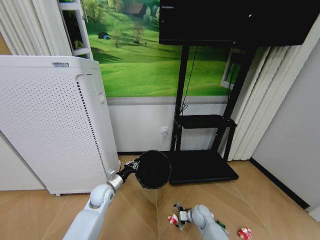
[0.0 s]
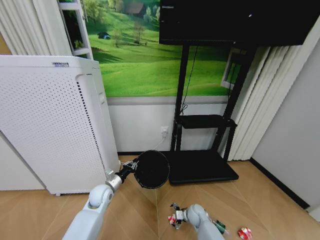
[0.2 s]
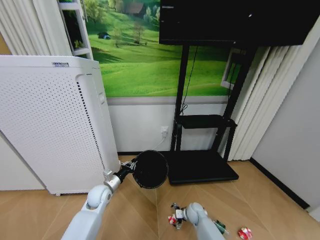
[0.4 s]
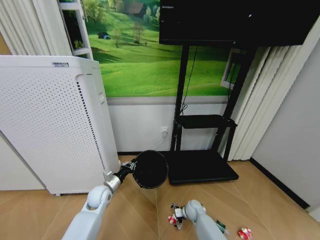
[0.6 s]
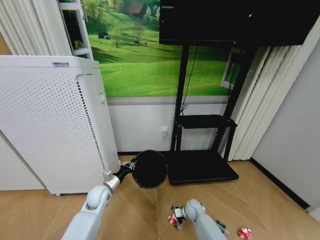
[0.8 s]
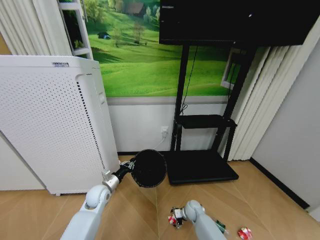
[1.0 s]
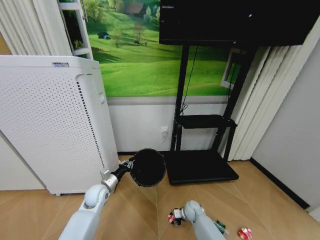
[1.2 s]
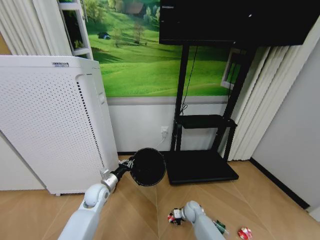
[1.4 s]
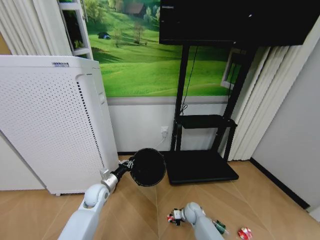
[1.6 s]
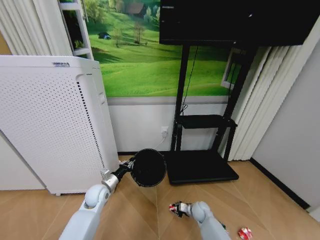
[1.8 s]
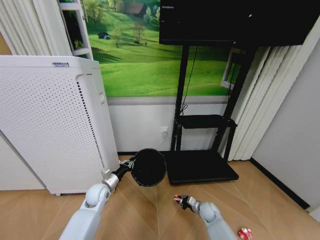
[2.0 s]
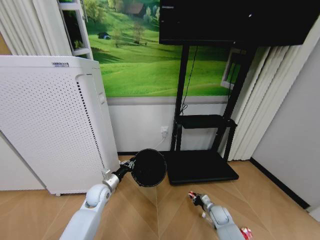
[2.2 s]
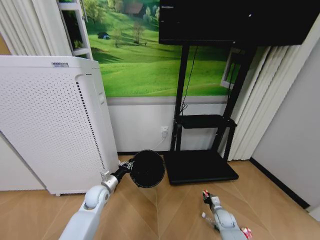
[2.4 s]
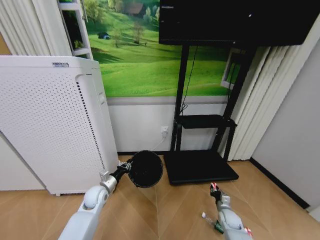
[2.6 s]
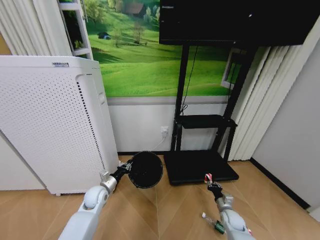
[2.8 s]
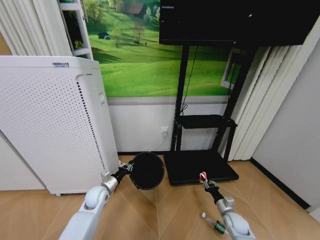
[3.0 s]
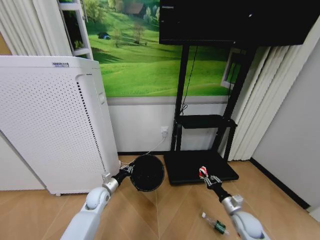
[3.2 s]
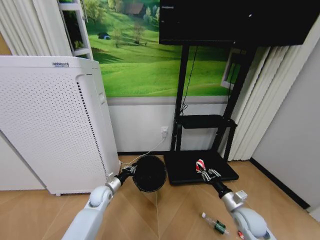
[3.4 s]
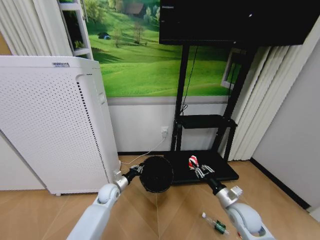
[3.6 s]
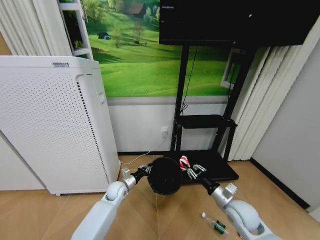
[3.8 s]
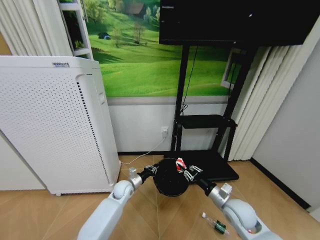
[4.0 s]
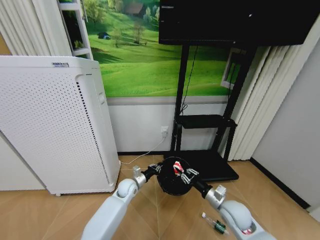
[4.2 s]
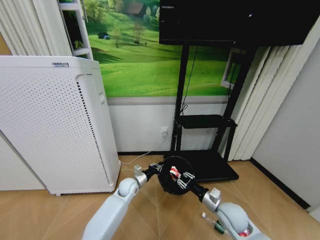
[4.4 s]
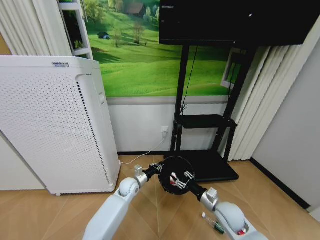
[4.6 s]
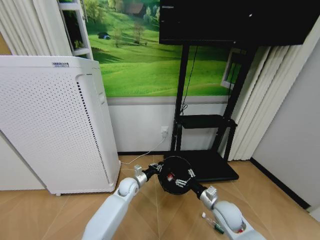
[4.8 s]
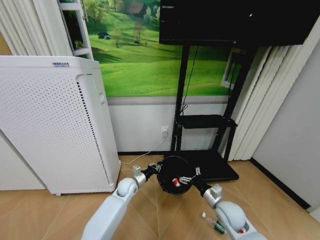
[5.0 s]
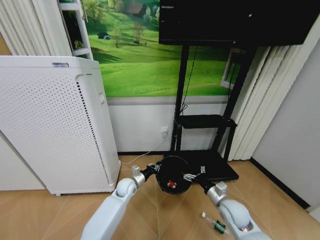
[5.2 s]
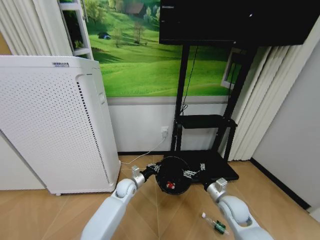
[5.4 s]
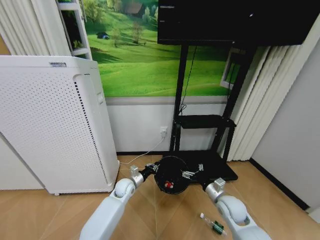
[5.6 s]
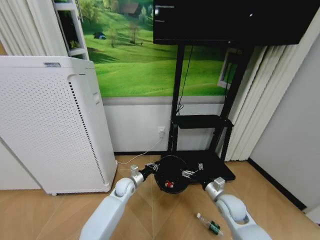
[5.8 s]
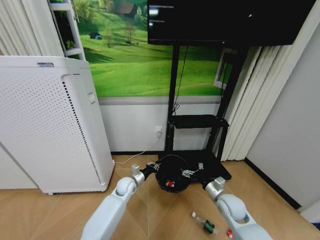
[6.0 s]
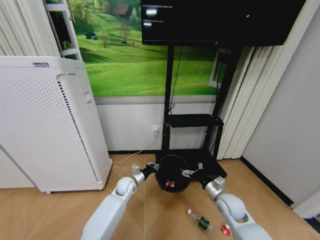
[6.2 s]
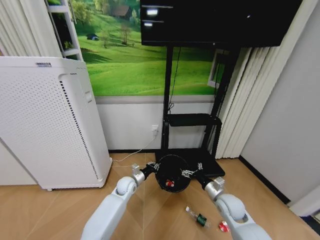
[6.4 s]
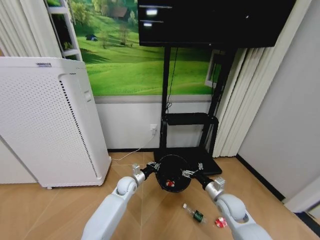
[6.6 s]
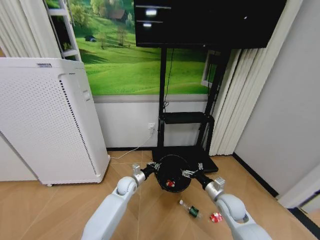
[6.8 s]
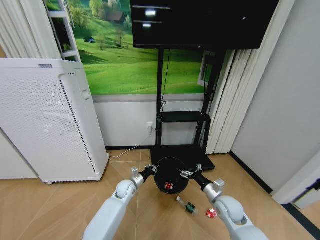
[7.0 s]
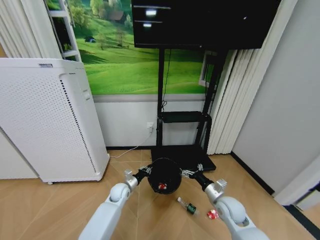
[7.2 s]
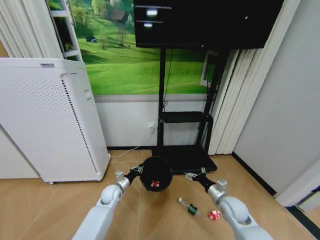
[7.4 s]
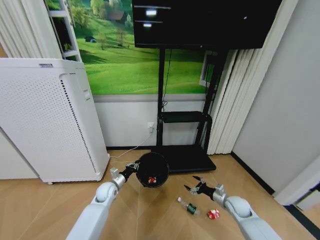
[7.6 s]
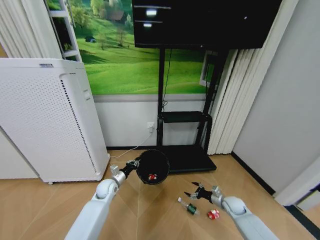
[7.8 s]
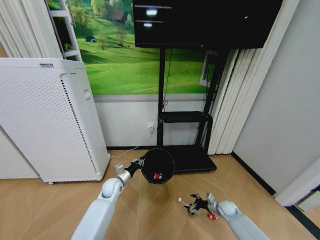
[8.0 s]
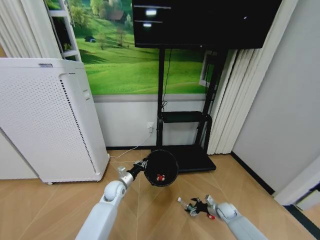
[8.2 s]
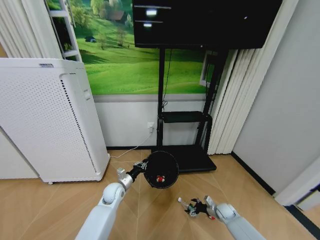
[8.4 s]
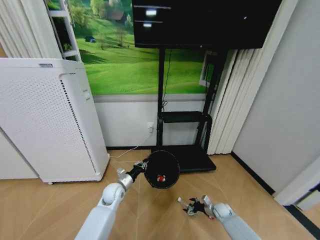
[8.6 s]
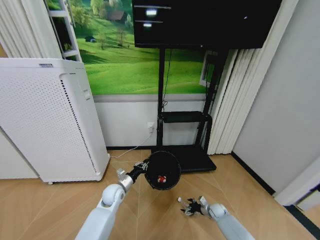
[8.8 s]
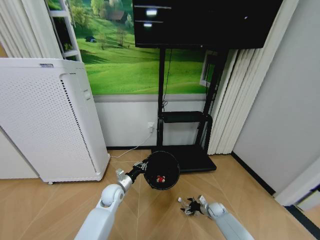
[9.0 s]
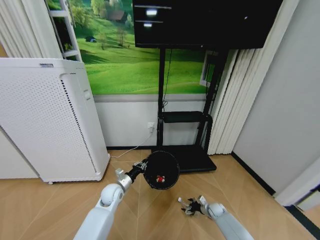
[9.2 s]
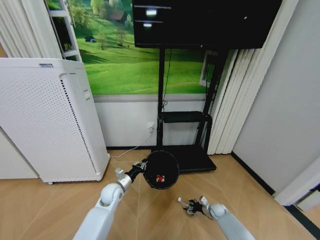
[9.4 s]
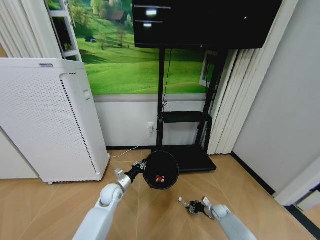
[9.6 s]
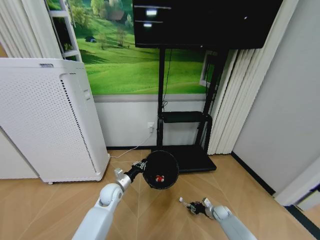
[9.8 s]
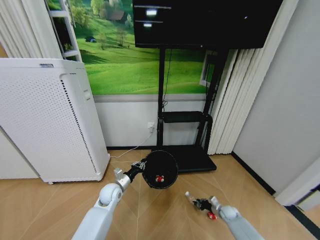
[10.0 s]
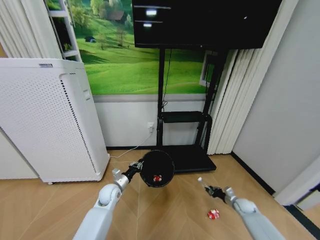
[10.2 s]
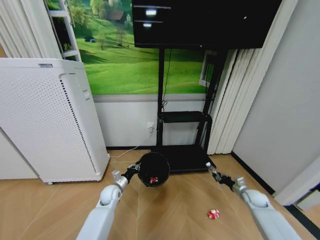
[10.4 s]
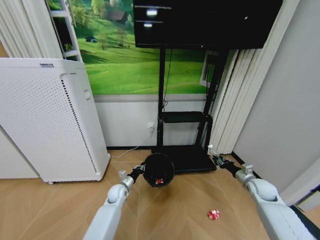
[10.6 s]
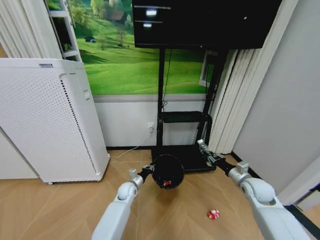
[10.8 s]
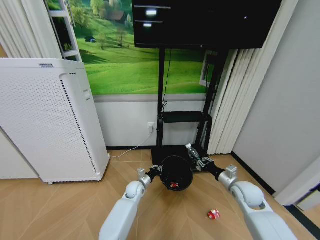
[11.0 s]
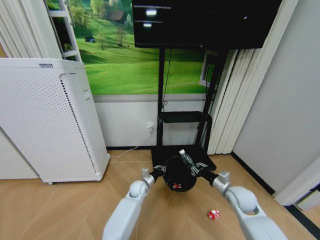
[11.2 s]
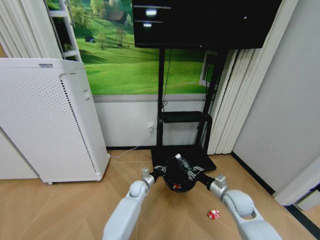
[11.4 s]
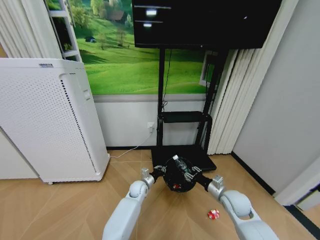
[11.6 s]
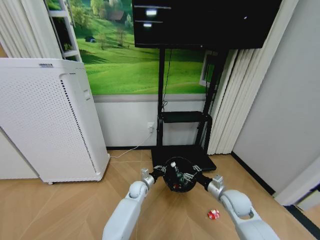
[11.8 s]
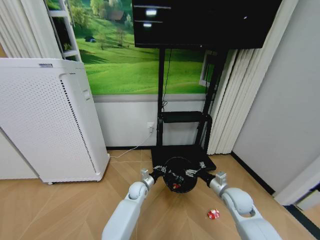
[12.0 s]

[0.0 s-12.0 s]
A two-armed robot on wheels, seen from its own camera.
Task of the whole recording: Pick up the trash bin and place the garbage on the floor into it.
0.0 to 1.6 s: The right gripper changes place by some 5 cm, and closes its fingers.
1.6 to 3.0 s: The right gripper shifts about 20 cm to the right and backward.
3.0 to 4.4 s: The right gripper travels upward and to the left by some 20 cm, while the left gripper travels to the right by some 15 cm.
4.4 to 6.0 s: The right gripper opens up.
6.0 to 7.6 s: The right gripper goes roughly 10 cm to the right and downward. Meanwhile the left gripper moves to the left, roughly 10 cm.
7.6 to 9.0 s: The right gripper travels downward by about 15 cm; the left gripper shifts by approximately 5 cm.
9.0 to 10.4 s: The left gripper ends up approximately 5 cm from where it was. Meanwhile the right gripper goes some 20 cm upward and to the right, and closes its fingers.
10.4 to 12.0 s: The left gripper shifts some 15 cm to the right; the right gripper shifts approximately 20 cm to the left and upward, and opens.

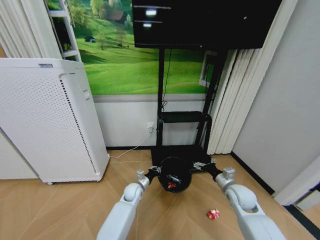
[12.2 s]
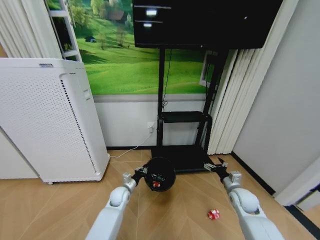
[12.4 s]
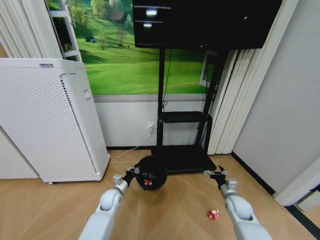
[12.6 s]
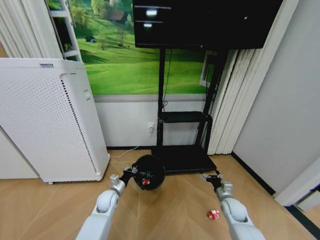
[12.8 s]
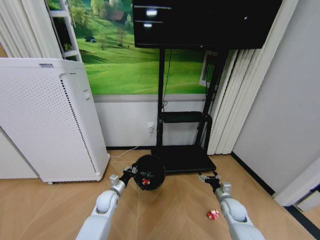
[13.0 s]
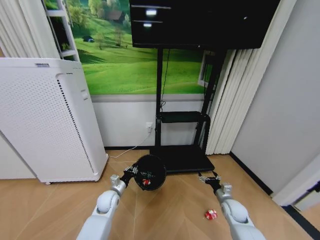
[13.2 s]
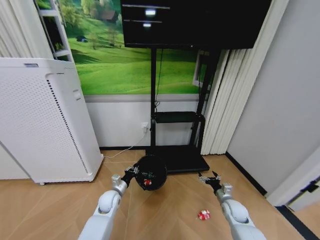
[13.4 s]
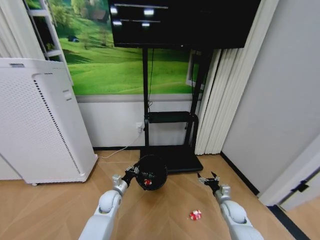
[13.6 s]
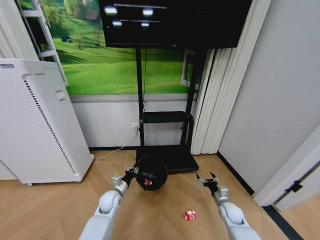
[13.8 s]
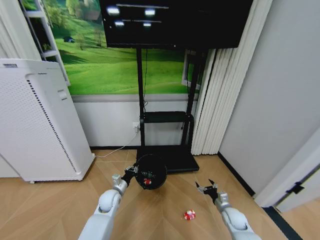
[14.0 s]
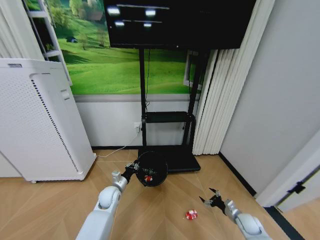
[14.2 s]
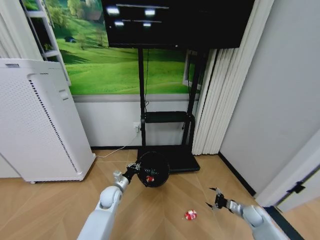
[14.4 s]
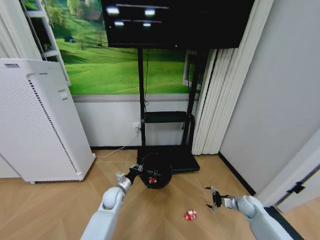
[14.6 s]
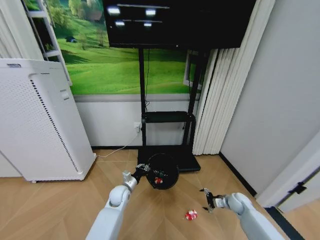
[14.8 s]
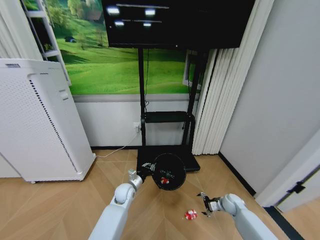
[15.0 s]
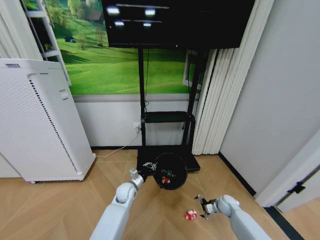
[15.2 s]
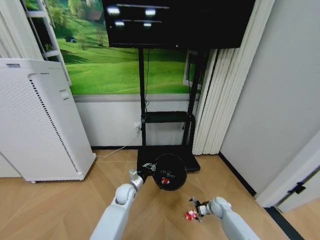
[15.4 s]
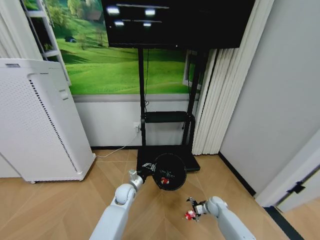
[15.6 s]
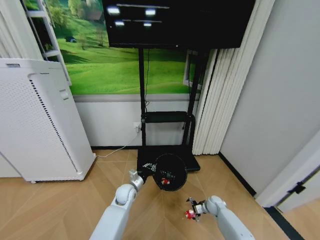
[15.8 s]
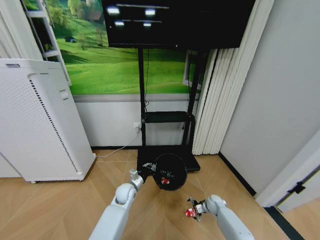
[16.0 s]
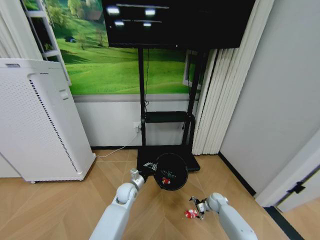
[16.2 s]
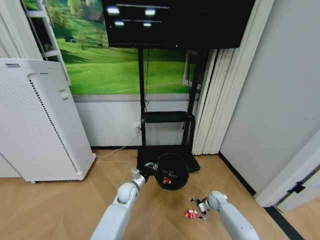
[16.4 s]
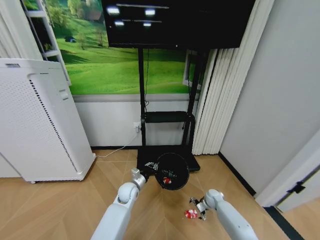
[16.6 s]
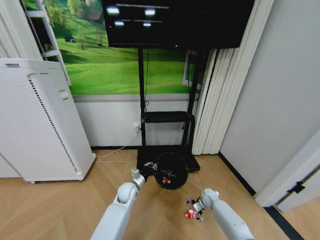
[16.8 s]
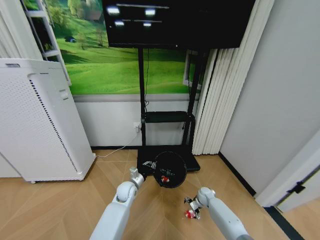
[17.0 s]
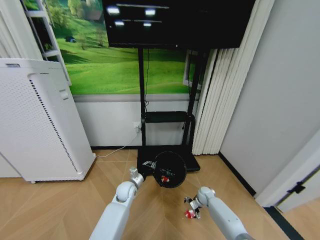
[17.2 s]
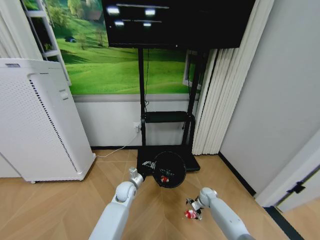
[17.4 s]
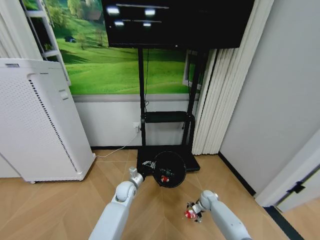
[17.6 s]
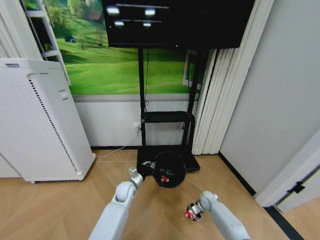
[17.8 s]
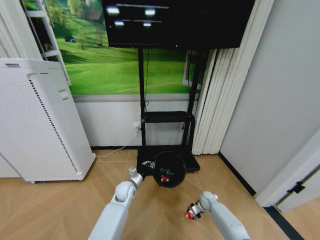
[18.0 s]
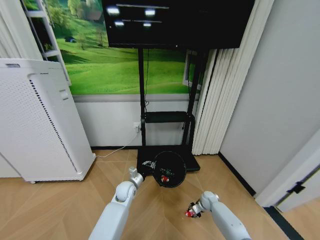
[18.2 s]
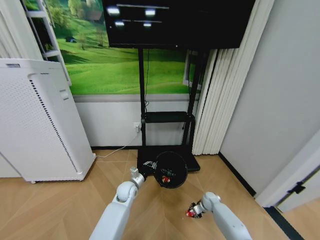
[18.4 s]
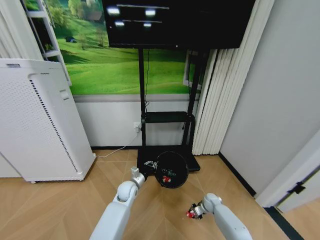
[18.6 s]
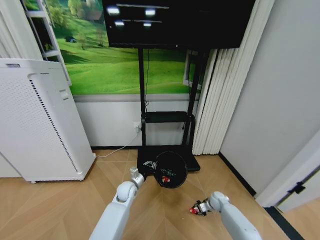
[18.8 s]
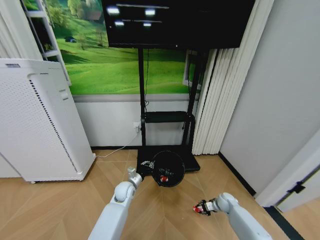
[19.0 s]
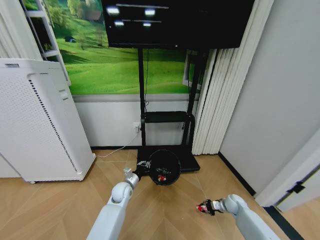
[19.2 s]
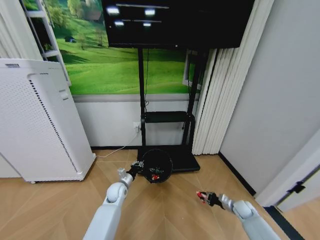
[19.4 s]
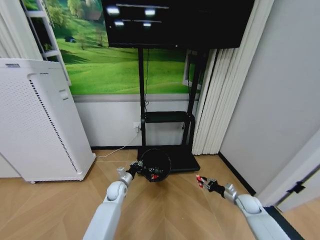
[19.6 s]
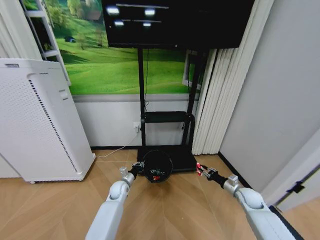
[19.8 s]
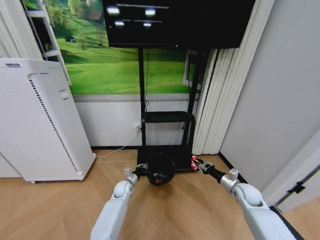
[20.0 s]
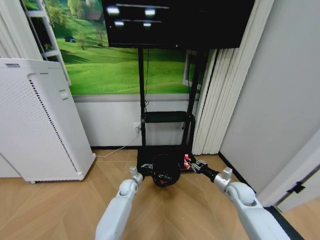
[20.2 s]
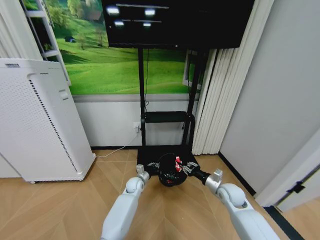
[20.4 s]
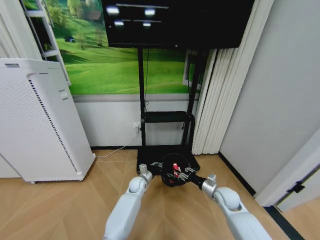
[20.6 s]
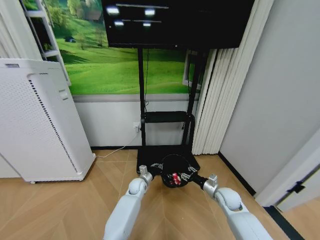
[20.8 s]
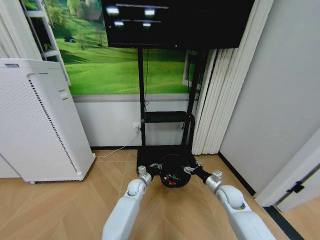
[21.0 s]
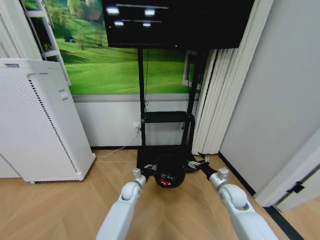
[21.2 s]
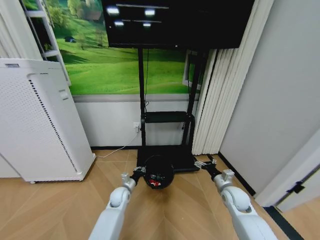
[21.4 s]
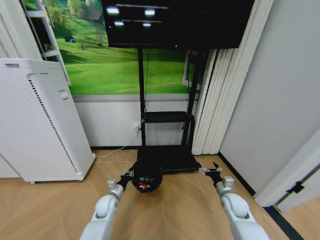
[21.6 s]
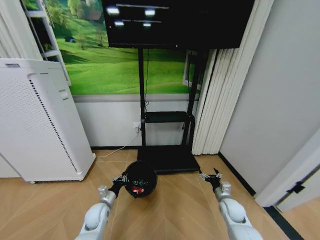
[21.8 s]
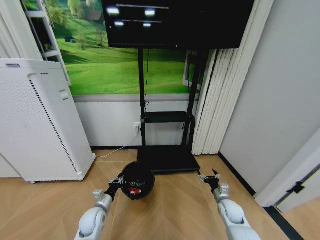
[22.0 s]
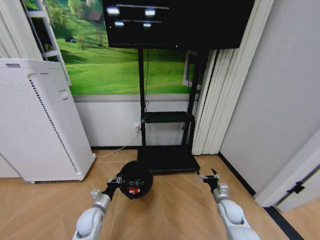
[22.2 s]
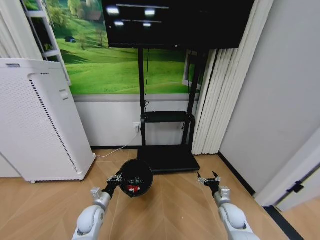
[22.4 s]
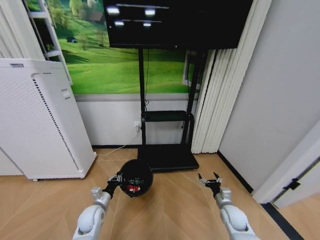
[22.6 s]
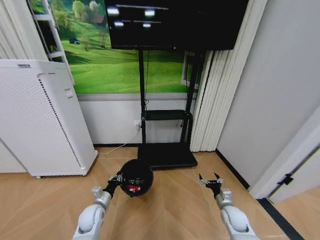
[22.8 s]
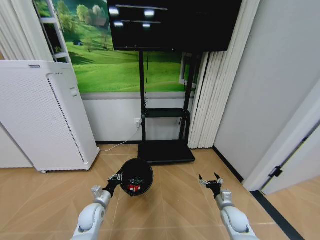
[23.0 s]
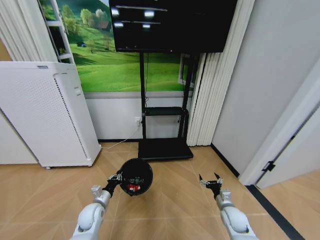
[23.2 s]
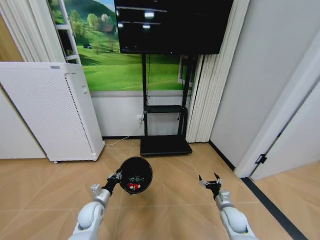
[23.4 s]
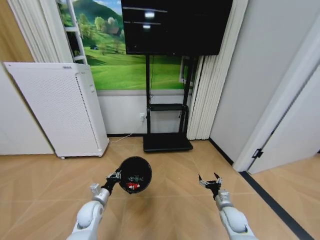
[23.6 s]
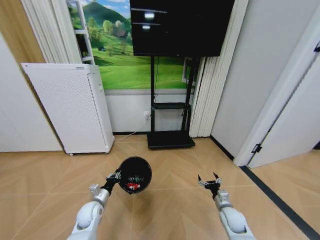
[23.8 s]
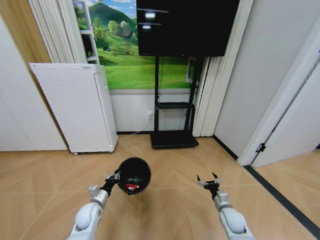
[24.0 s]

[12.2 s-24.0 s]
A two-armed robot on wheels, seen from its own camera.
Task of the whole recording: Pick up the trash bin and place the garbage on the floor into it.
12.2 to 13.6 s: The left gripper heads to the left, covering roughly 10 cm. The right gripper is displaced downward by roughly 15 cm.
13.6 to 15.2 s: The right gripper is displaced downward by approximately 5 cm, and goes to the right and returns, about 15 cm each way, while the left gripper shifts about 5 cm to the right.
15.2 to 16.6 s: The right gripper changes place by roughly 5 cm.
16.6 to 18.2 s: The right gripper closes.
18.2 to 19.6 s: The left gripper travels to the left by roughly 5 cm, while the right gripper travels to the right, upward and backward by some 20 cm.
19.6 to 21.0 s: The right gripper shifts about 15 cm to the left and upward, and opens. Meanwhile the left gripper is displaced to the right by approximately 10 cm.
21.0 to 22.6 s: The left gripper shifts roughly 25 cm to the left and backward. Meanwhile the right gripper travels downward and backward by roughly 10 cm.
